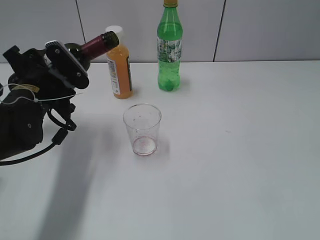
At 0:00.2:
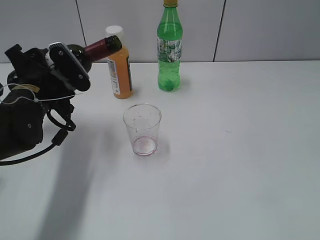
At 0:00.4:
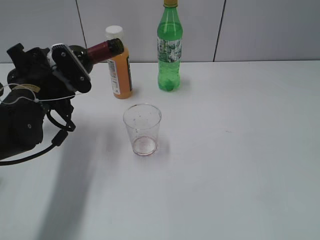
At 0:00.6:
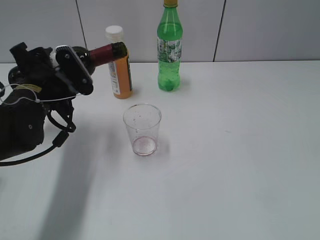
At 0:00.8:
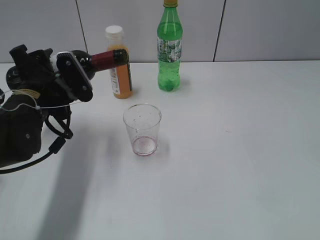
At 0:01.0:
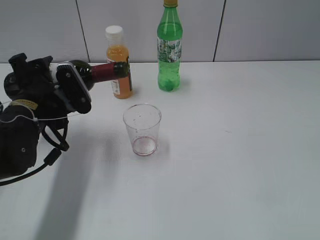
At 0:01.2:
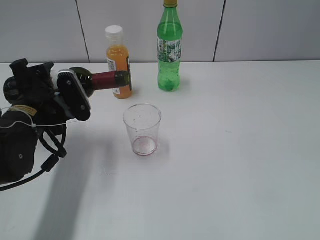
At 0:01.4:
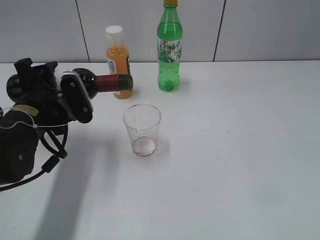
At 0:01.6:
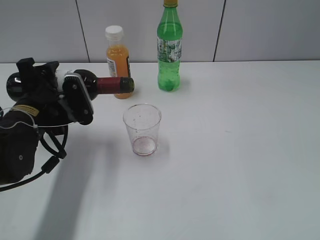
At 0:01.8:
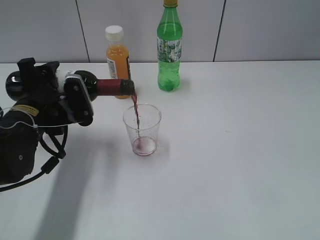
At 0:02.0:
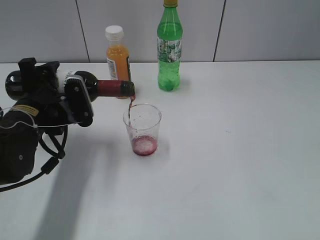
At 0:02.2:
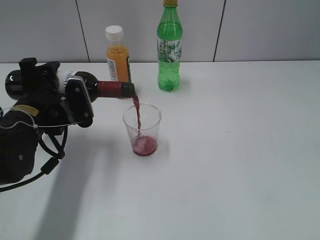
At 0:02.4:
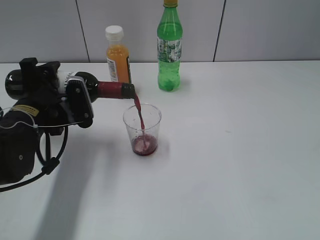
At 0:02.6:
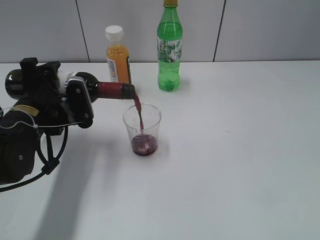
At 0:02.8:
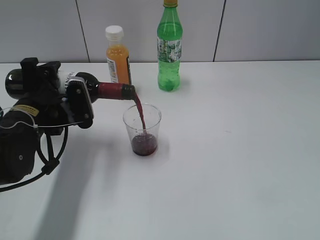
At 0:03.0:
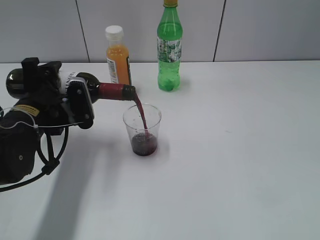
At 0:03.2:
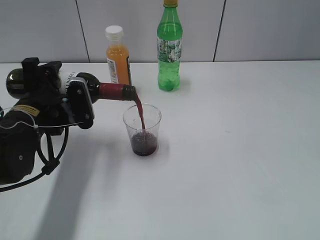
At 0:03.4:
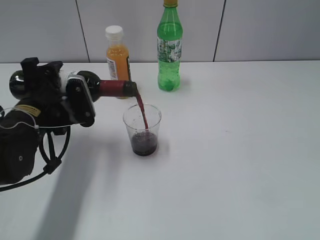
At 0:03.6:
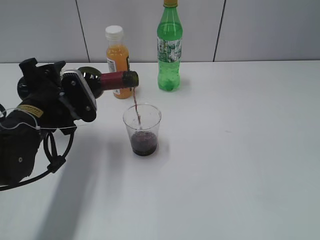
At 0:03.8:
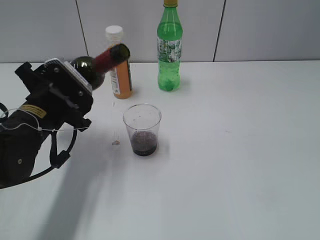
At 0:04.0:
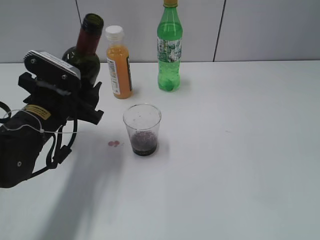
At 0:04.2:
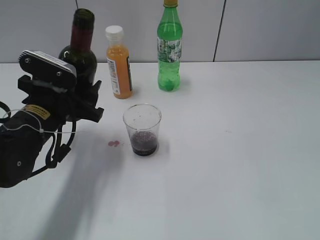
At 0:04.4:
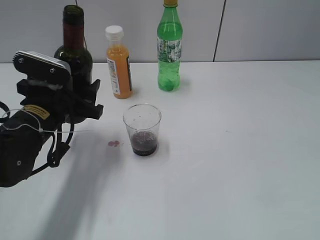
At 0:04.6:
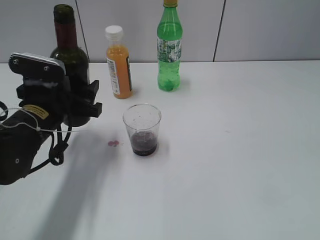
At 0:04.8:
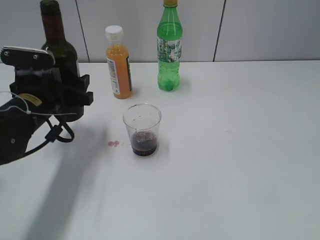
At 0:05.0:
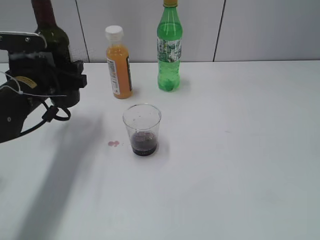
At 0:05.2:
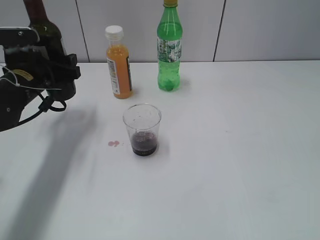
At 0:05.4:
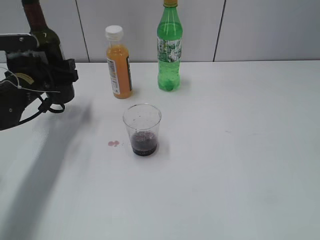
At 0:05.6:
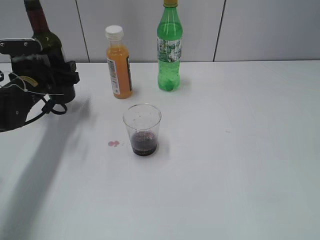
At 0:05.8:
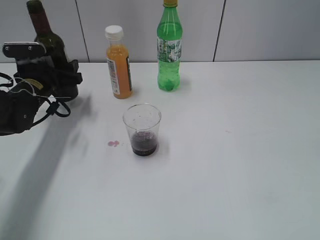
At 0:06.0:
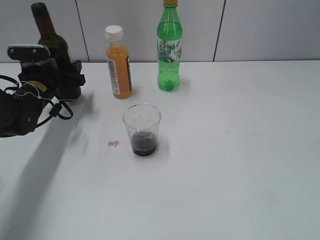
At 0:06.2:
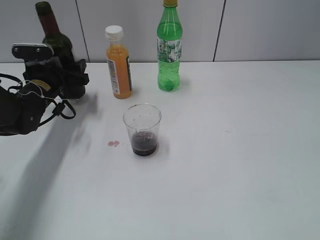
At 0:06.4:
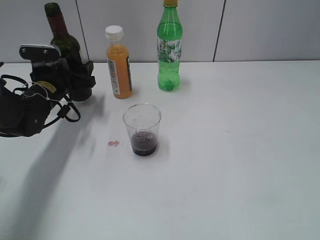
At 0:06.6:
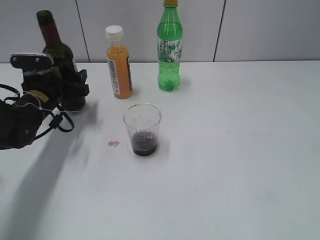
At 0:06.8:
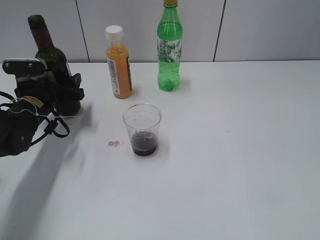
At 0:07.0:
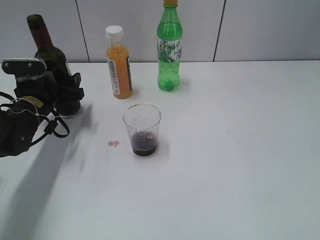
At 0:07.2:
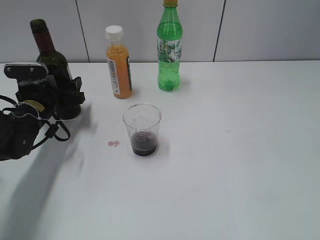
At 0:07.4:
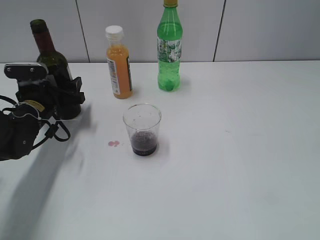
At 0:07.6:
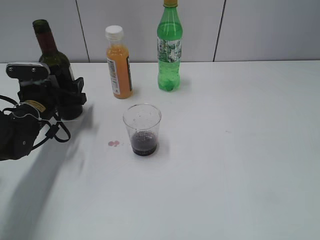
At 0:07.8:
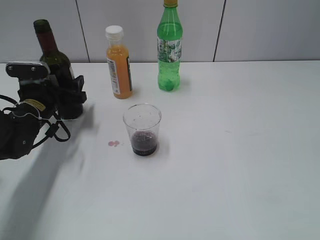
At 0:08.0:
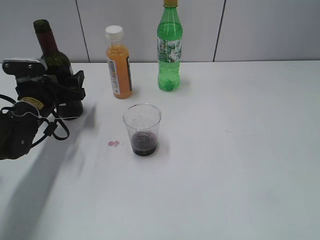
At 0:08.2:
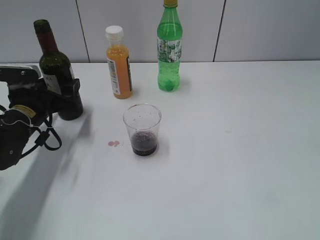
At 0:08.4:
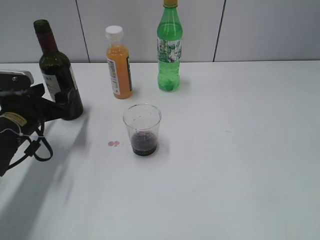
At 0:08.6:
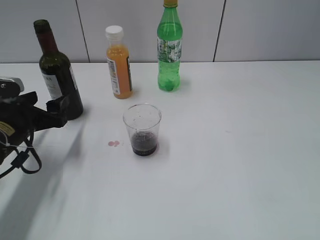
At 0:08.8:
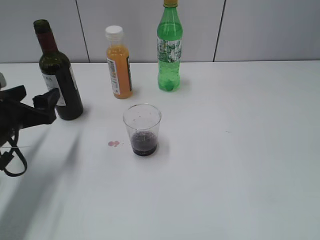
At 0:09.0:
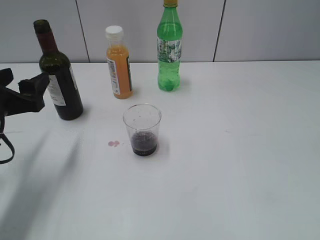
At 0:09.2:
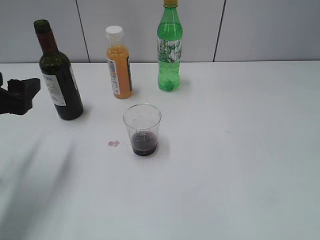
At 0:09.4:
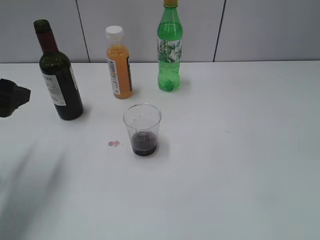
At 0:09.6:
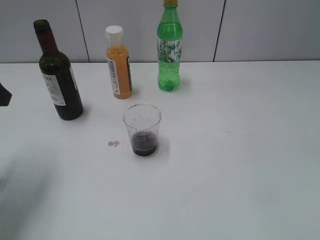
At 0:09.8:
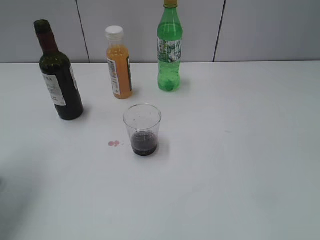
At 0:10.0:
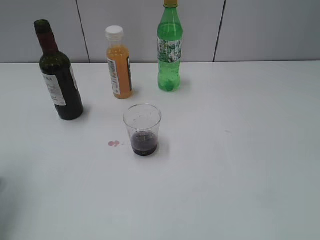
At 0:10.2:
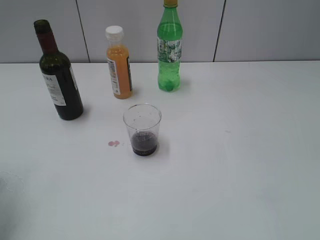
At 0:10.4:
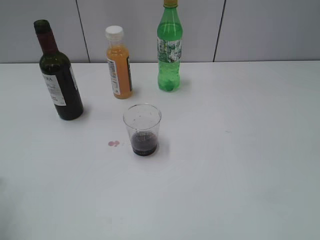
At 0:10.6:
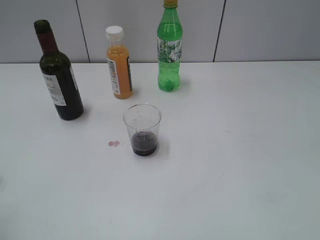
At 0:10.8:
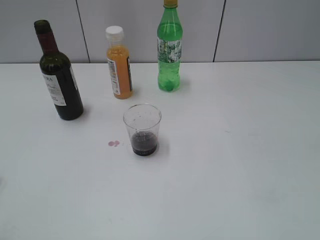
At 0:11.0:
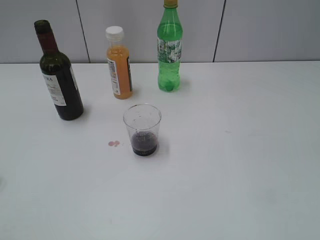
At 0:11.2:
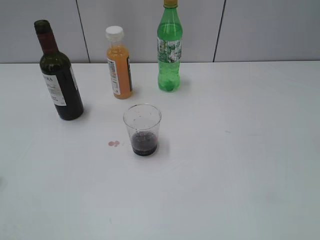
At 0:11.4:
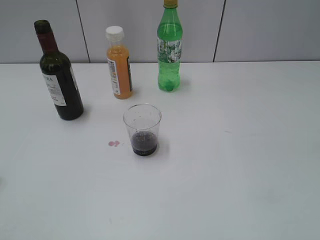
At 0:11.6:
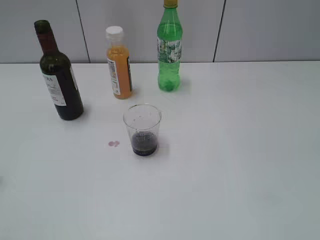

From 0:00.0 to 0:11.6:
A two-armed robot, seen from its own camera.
Step, from 0:00.0 to 0:03.6: Pour the red wine from bottle to cup with left gripper.
Step, from 0:03.8 to 0:08.4: Place the red wine bottle on the table with left gripper.
From 0:00.0 to 0:01.4: The grippers make only small movements.
From 0:01.4 to 0:02.8: The grippers move only a little.
From 0:04.4 to 0:05.8: The left gripper moves forward and to the left, some 15 cm.
From 0:05.8 to 0:07.2: The grippers stay close to where they were, moving slightly.
From 0:07.2 to 0:08.8: The left gripper moves backward, roughly 10 cm, and opens up.
From 0:08.8 to 0:10.2: The left gripper heads upward and backward, covering roughly 15 cm.
From 0:10.2 to 0:11.6: The left gripper travels backward by approximately 20 cm.

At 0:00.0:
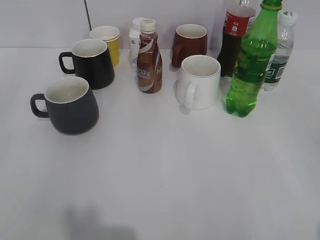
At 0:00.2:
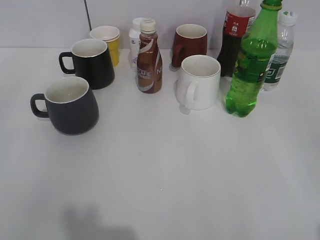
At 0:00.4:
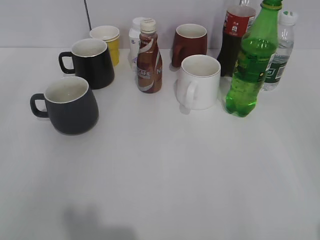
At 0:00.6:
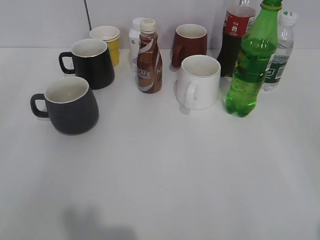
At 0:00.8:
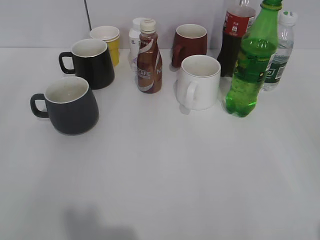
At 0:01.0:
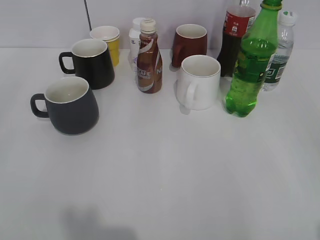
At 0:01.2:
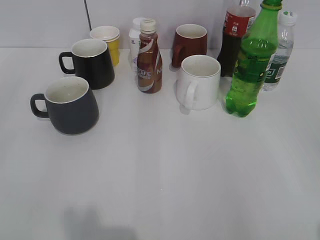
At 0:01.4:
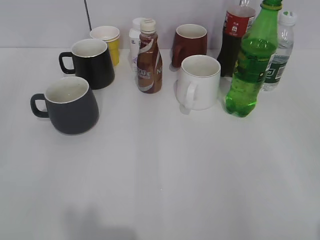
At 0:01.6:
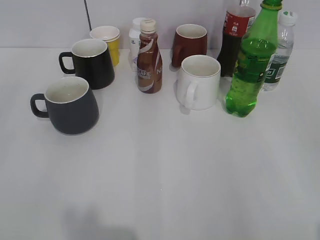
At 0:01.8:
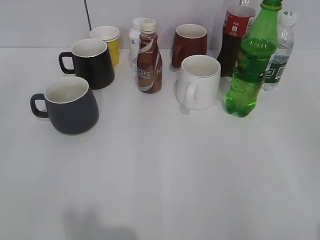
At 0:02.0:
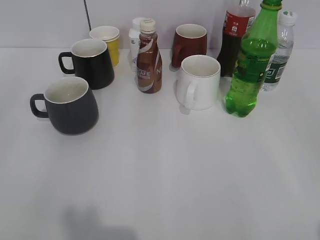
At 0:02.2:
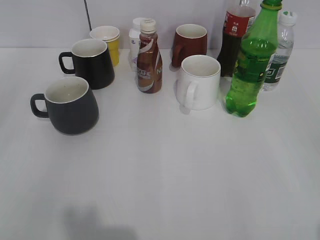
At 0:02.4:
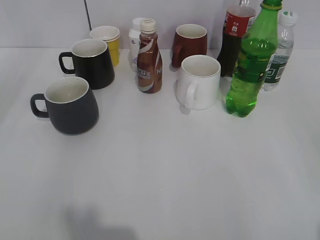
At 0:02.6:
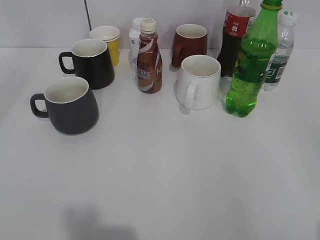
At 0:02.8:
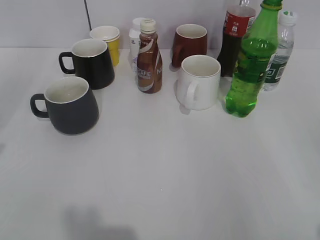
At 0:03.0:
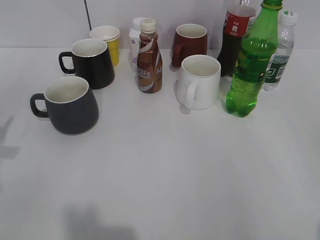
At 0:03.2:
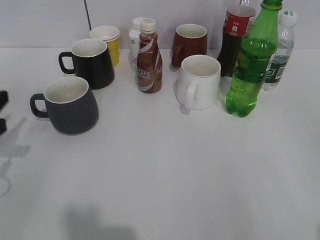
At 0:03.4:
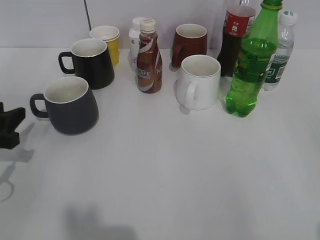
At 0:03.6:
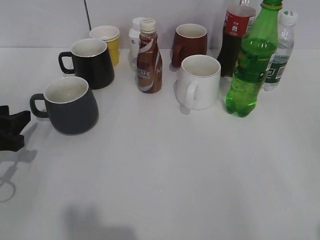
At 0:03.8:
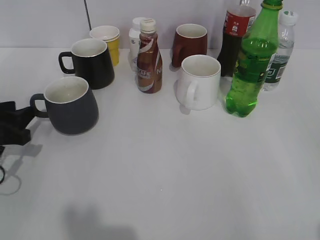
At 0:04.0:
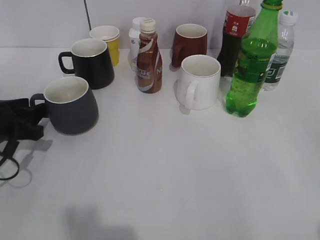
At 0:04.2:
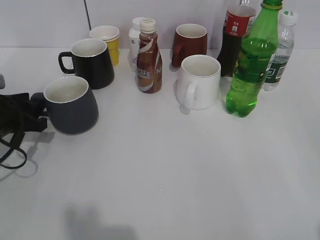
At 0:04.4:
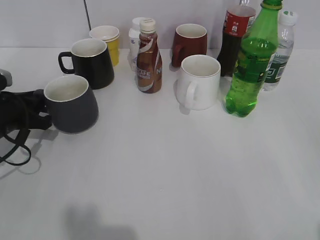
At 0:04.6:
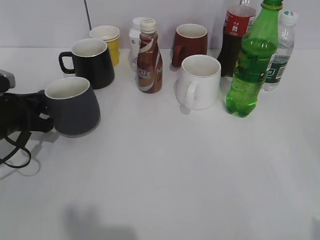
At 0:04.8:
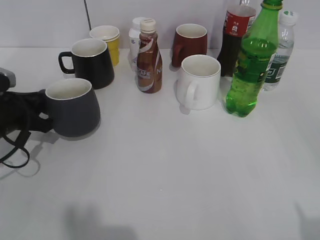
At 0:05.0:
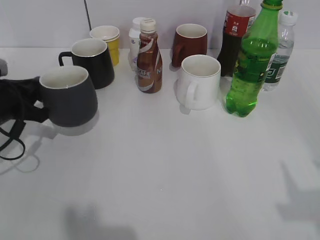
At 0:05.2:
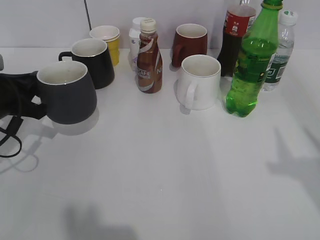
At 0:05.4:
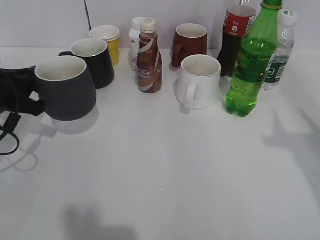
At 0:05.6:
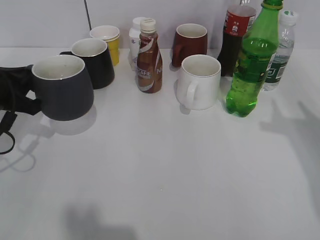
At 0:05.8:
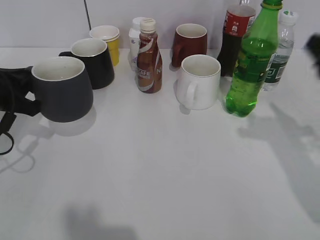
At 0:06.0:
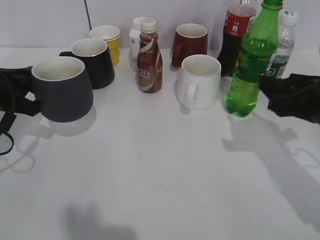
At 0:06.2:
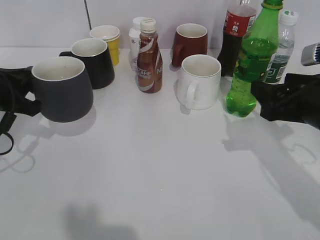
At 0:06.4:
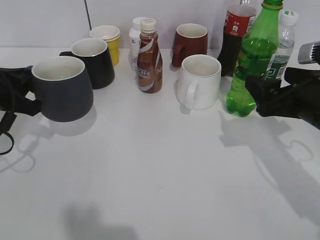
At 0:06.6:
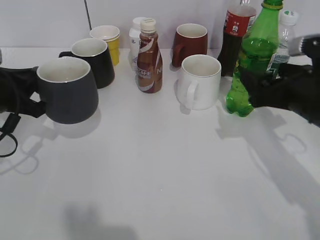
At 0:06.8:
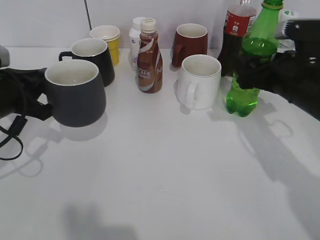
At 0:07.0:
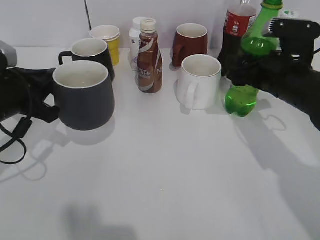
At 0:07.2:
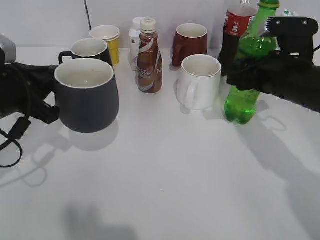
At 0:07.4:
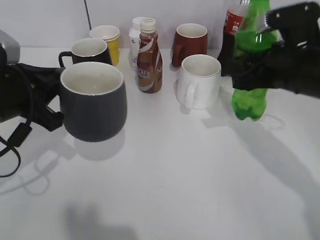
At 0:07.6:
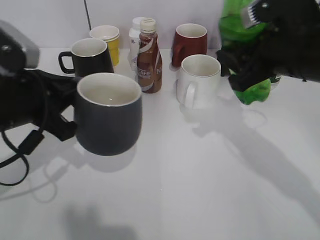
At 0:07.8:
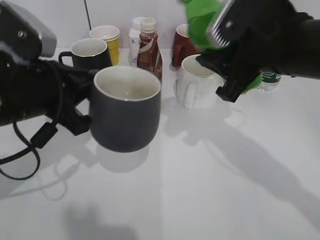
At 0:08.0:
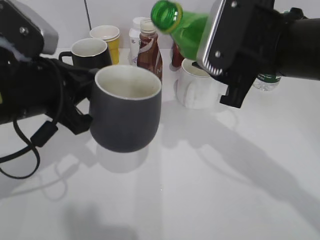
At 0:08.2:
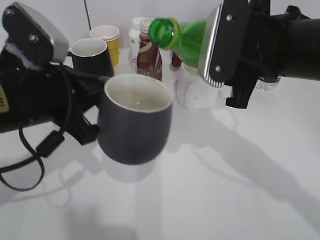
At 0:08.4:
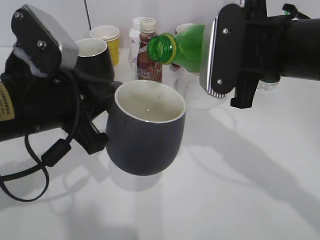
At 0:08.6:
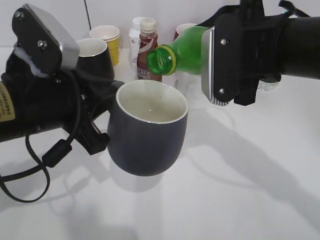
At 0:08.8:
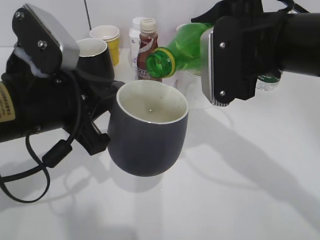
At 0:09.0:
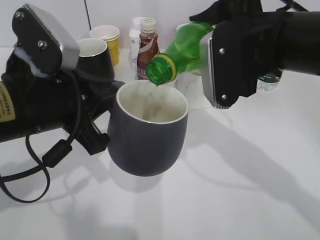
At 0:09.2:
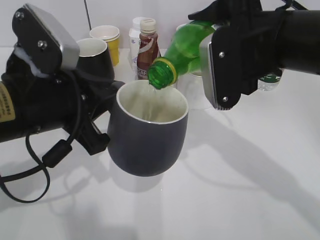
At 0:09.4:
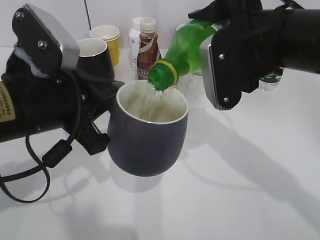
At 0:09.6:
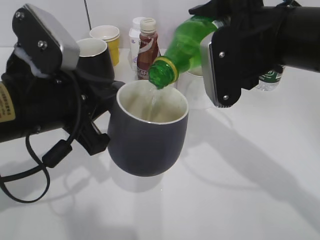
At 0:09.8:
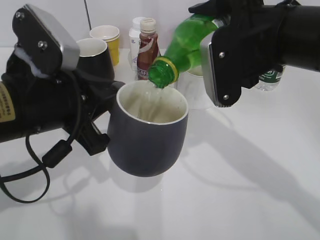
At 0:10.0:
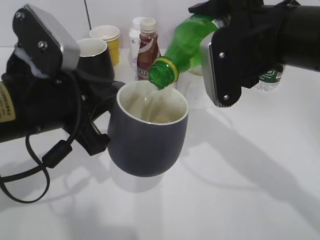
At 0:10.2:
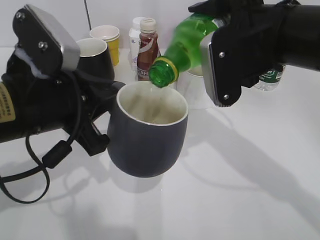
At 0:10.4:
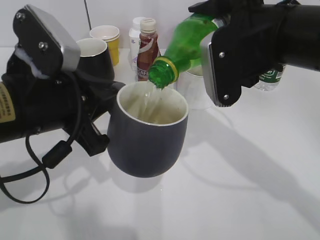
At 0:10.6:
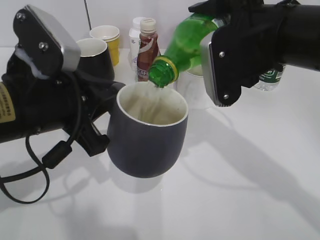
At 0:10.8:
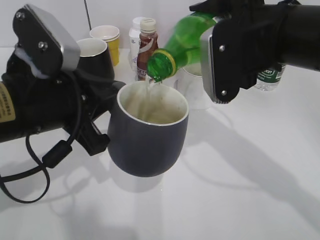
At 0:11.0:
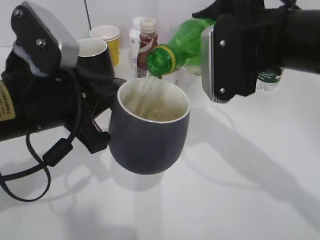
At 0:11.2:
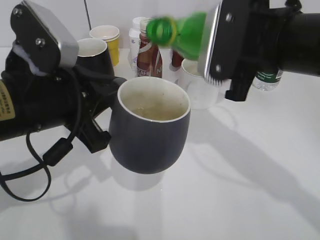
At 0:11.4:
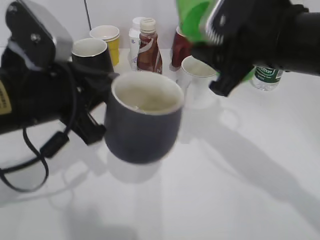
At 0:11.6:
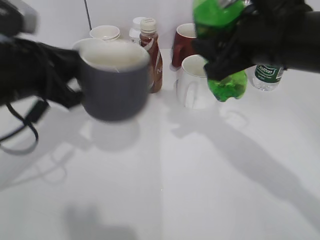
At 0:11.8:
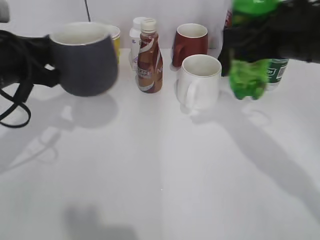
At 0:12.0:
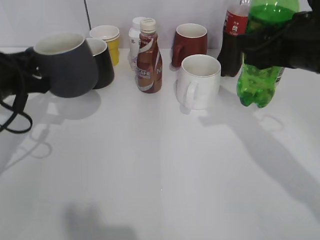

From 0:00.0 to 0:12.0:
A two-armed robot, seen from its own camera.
Step, from 0:02.0 to 0:04.4: Grasp the grey cup with left gripper.
Step, from 0:04.6 to 0:05.6: Lift the grey cup with left gripper.
Step, from 0:05.8 to 0:07.0: Grasp the bottle with sprite with right gripper.
Step, from 0:07.2 to 0:11.2: Pour the sprite from bottle to cup with right gripper.
From 0:03.0 to 0:04.4: The left gripper heads forward and downward, covering some 15 cm, and opens and closes again.
From 0:04.4 to 0:06.0: The right gripper is displaced forward by roughly 20 cm, and closes up. The left gripper shifts roughly 5 cm upward.
From 0:06.0 to 0:07.6: The left gripper travels to the right and backward by some 10 cm; the right gripper shifts some 5 cm to the left, and opens, then closes again.
From 0:07.6 to 0:09.0: The right gripper moves approximately 5 cm. Meanwhile the left gripper moves to the right, some 5 cm.
From 0:09.0 to 0:10.4: There are only small adjustments of the grippers.
From 0:10.4 to 0:12.0: The left gripper goes about 15 cm to the left and forward. The right gripper travels to the right by some 5 cm.
